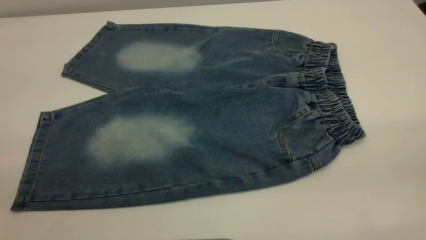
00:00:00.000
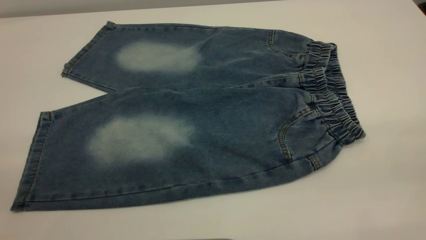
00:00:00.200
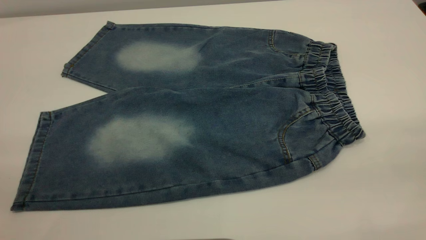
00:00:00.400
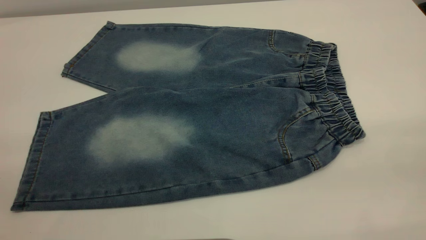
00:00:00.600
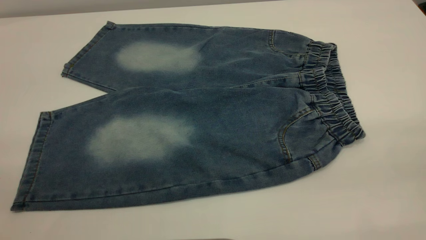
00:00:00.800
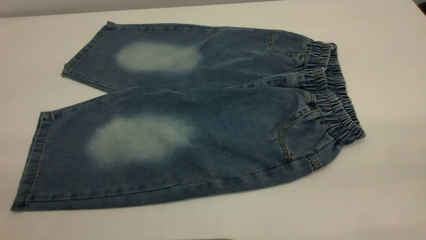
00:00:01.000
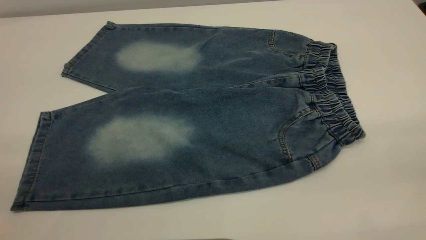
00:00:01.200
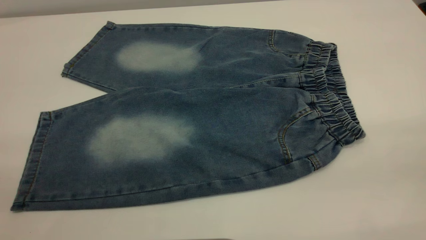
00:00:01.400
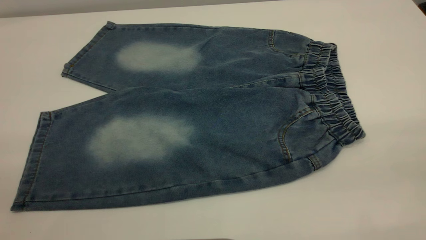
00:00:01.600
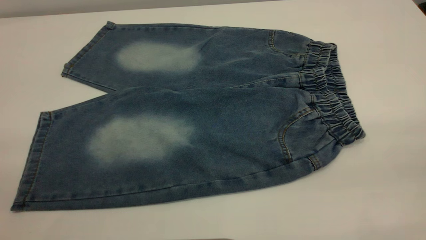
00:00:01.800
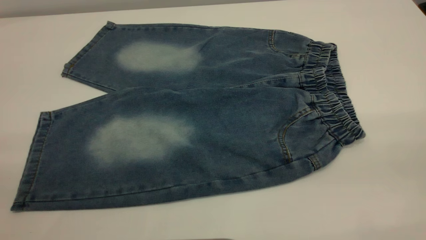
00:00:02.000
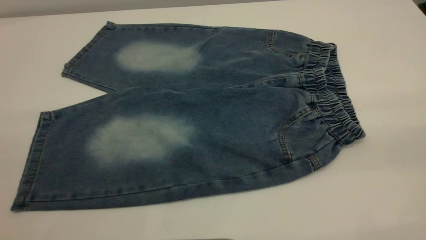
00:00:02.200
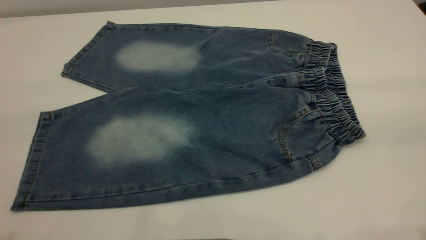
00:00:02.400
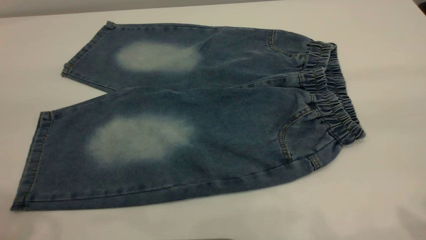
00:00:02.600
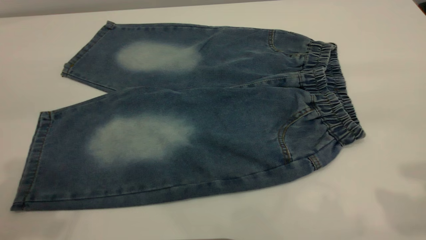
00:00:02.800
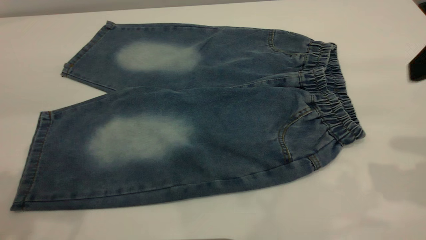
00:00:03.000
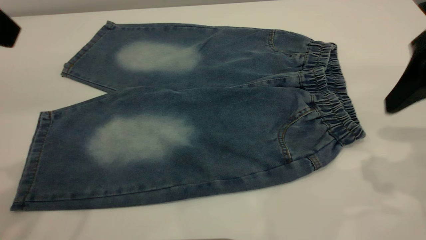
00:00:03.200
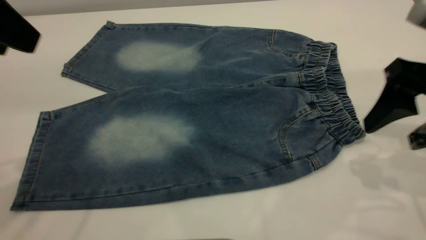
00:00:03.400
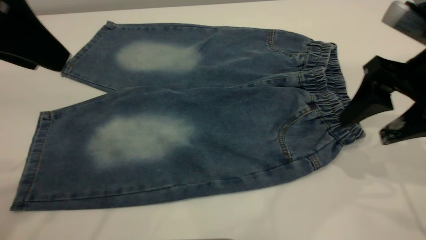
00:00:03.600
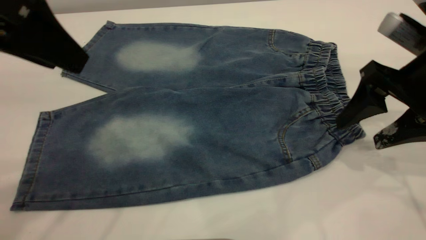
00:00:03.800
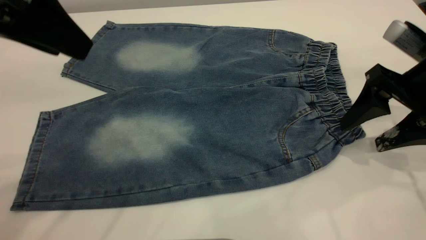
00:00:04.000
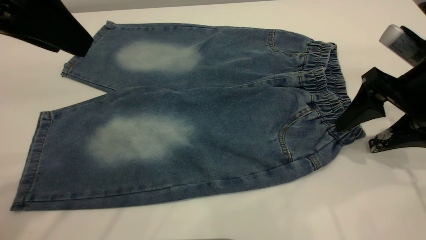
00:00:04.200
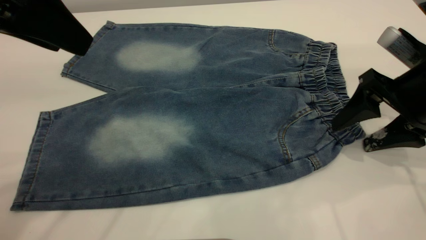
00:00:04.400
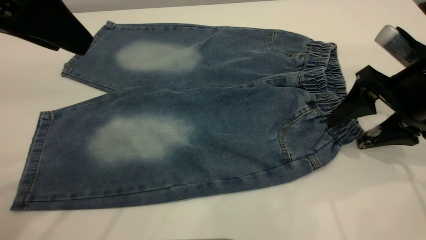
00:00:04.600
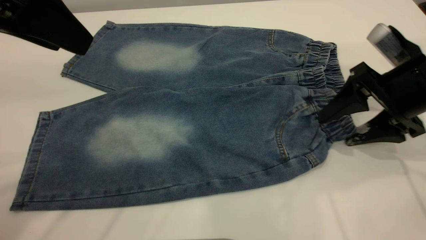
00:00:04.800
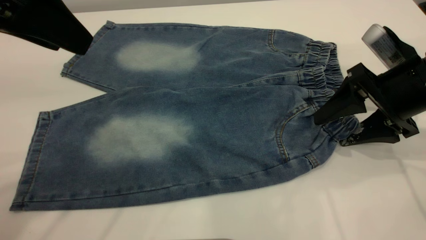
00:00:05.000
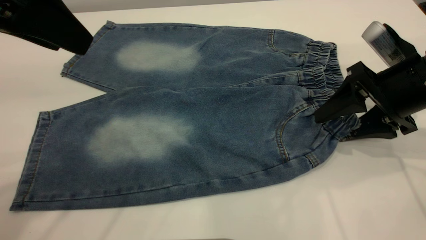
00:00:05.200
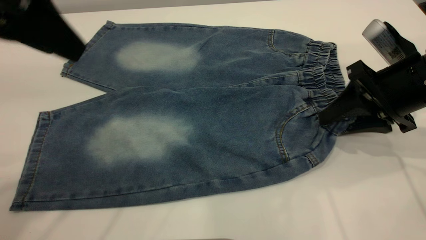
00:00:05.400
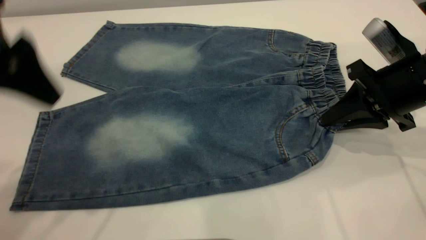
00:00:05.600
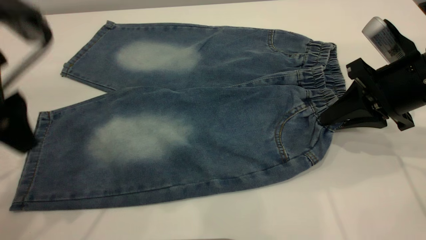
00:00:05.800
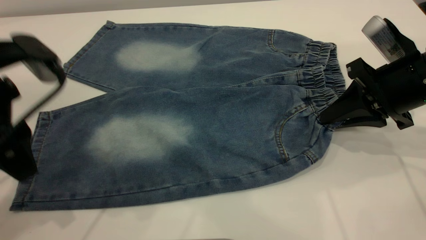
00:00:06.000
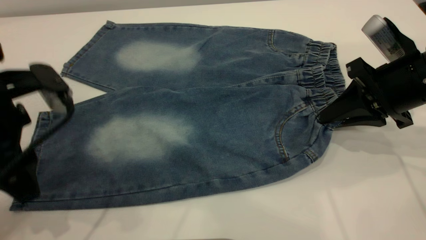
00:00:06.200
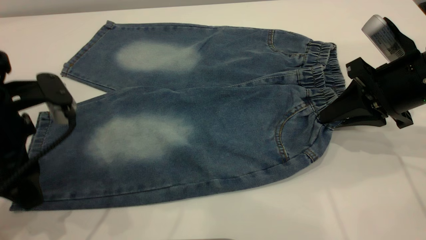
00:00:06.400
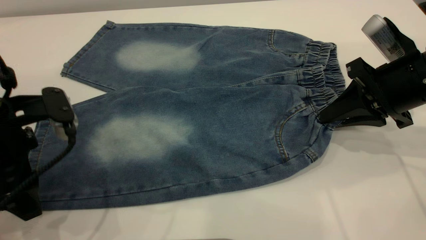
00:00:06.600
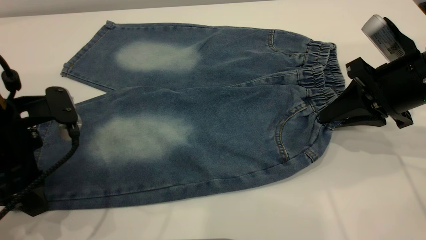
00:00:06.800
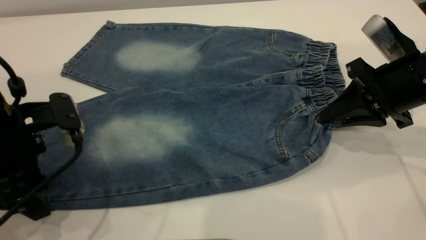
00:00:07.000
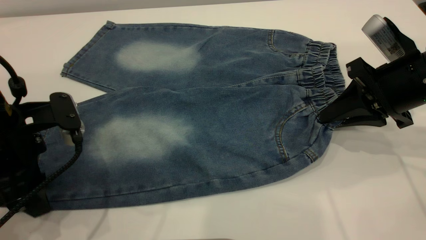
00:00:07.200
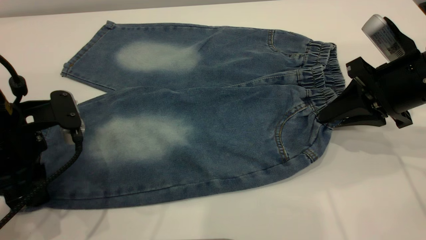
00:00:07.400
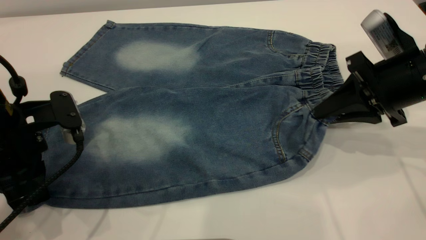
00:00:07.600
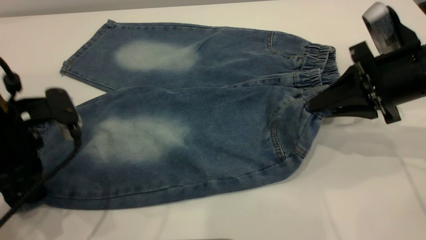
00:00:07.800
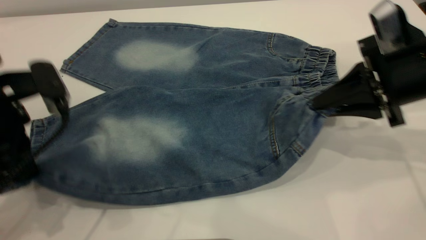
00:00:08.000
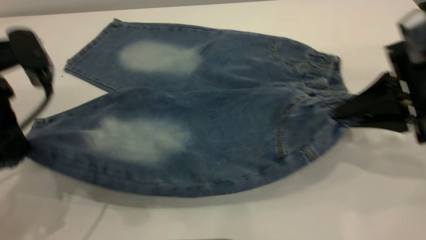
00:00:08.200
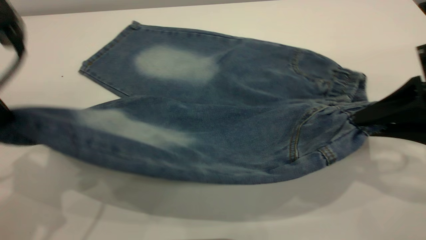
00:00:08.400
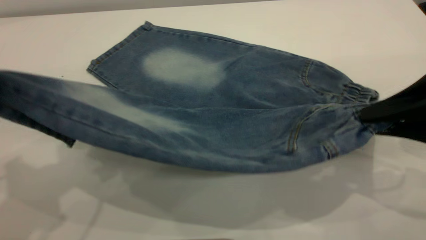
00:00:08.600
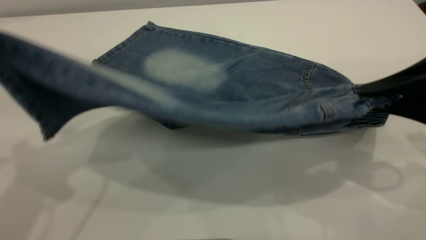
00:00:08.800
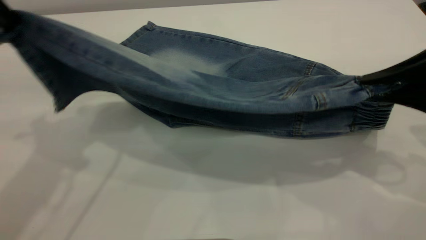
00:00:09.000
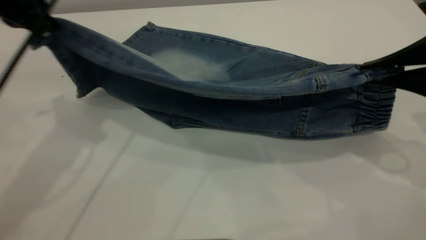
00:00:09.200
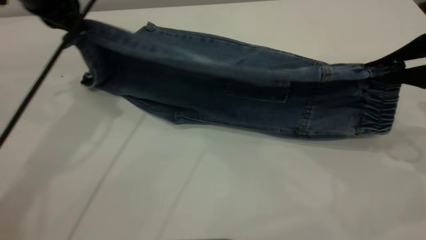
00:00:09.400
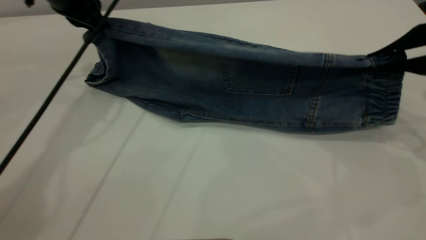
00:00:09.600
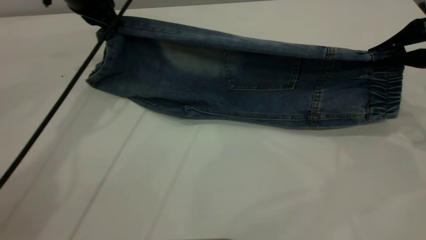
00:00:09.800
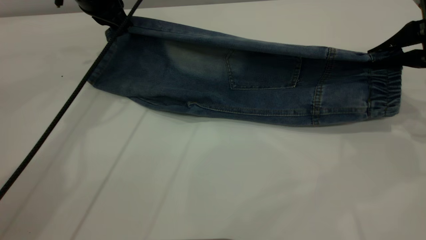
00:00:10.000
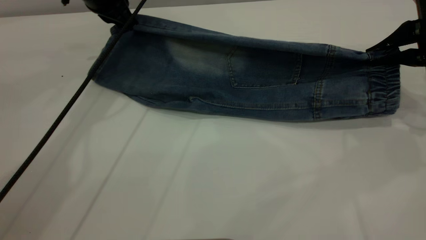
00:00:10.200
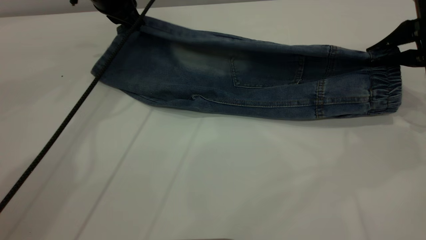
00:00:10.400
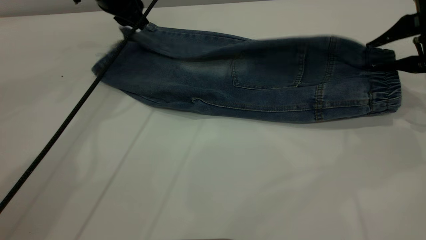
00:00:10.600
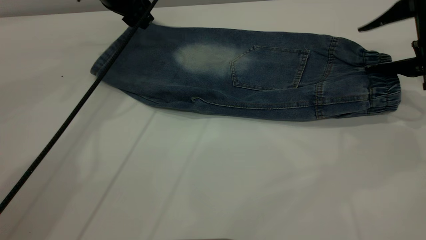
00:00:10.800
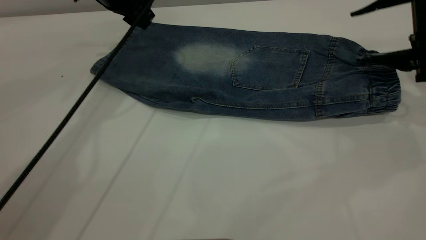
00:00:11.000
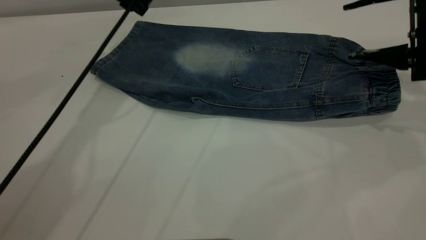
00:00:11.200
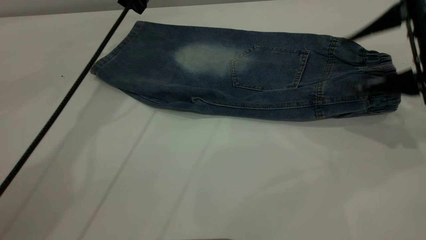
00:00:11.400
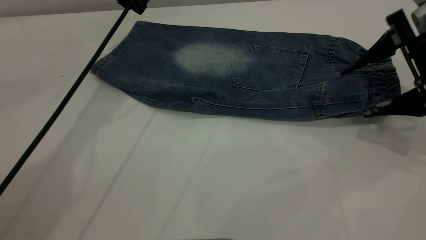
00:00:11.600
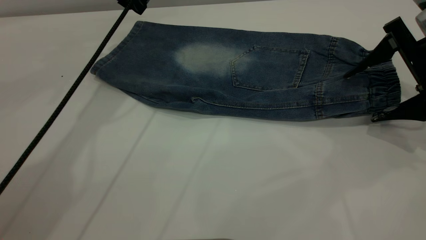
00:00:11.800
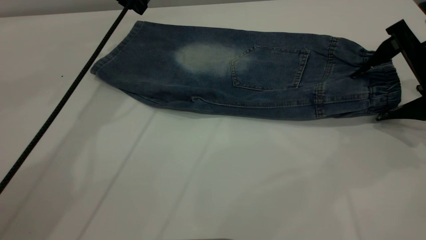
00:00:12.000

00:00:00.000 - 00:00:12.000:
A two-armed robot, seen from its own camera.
Step, 00:00:00.000 - 00:00:11.200: Fold the bottom of the pants upward.
00:00:00.000 - 00:00:01.600: Neither gripper changes place.
00:00:03.000 - 00:00:04.400: The left gripper goes some 5 cm to the right. Meanwhile the right gripper shifts roughly 15 cm downward and forward.
00:00:04.400 - 00:00:06.000: The right gripper closes up; the left gripper goes some 10 cm downward.
00:00:06.000 - 00:00:07.600: The left gripper goes roughly 5 cm downward, and closes its fingers.
00:00:07.600 - 00:00:09.000: The right gripper heads backward and upward, covering roughly 10 cm. The left gripper goes approximately 15 cm upward.
00:00:09.000 - 00:00:10.400: The right gripper moves forward, some 10 cm. The left gripper moves forward and downward, some 20 cm.
00:00:10.400 - 00:00:12.000: The left gripper opens, while the right gripper opens its fingers.

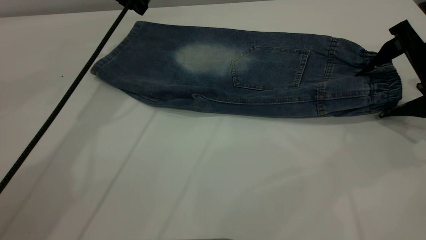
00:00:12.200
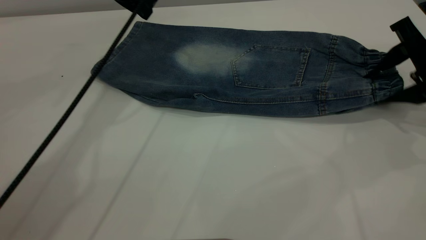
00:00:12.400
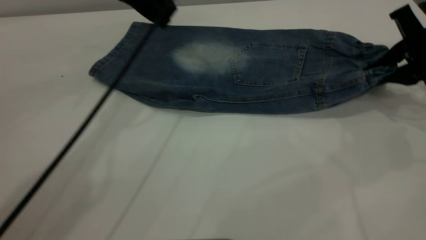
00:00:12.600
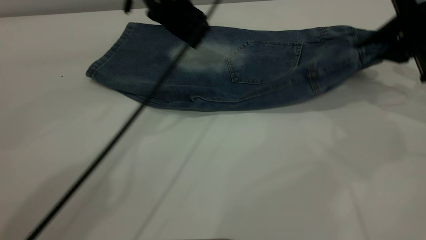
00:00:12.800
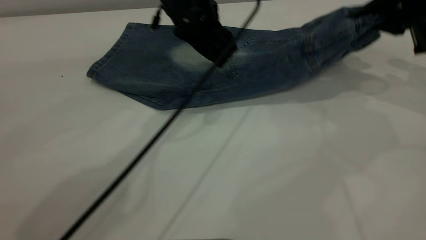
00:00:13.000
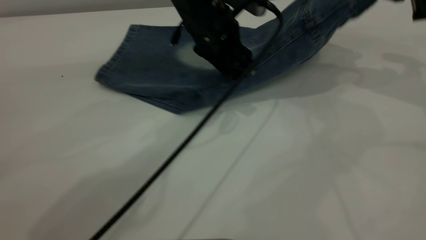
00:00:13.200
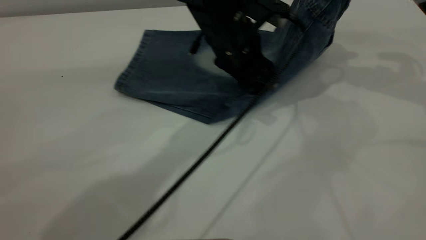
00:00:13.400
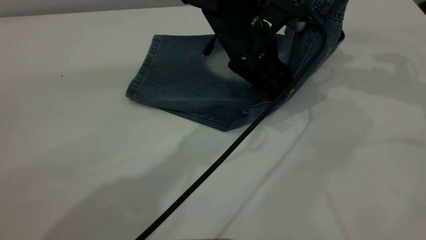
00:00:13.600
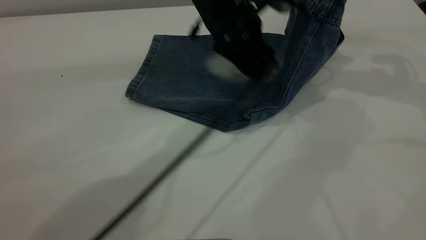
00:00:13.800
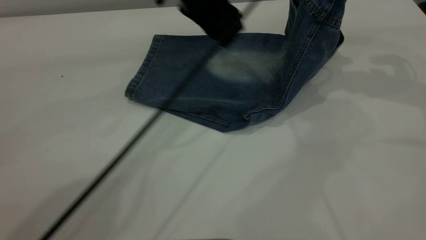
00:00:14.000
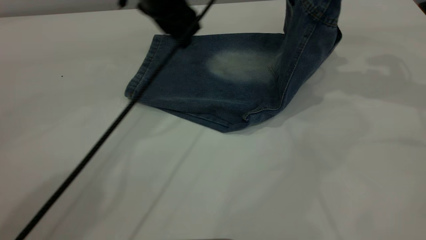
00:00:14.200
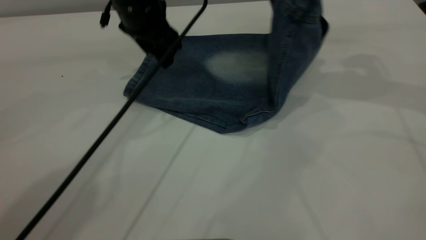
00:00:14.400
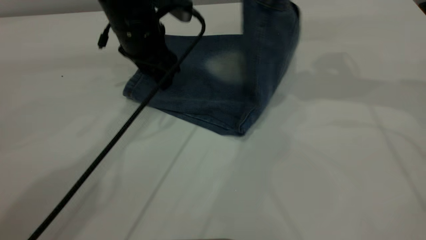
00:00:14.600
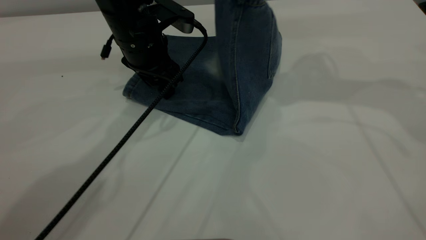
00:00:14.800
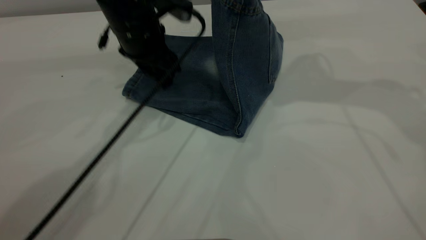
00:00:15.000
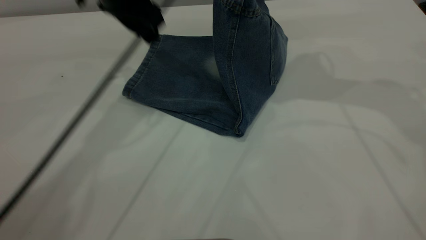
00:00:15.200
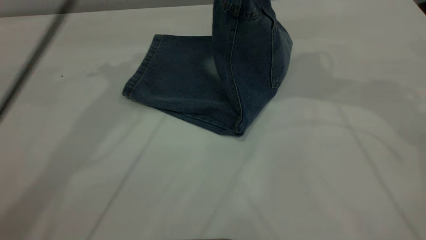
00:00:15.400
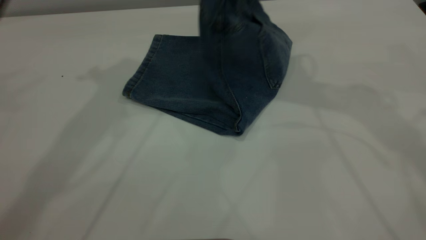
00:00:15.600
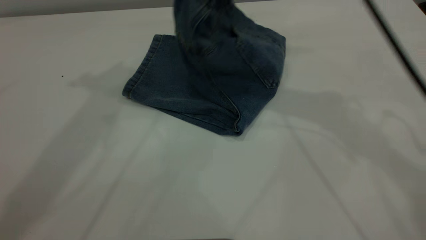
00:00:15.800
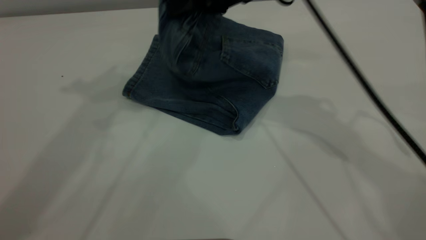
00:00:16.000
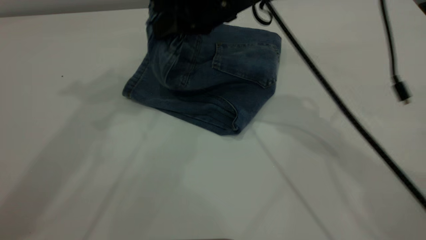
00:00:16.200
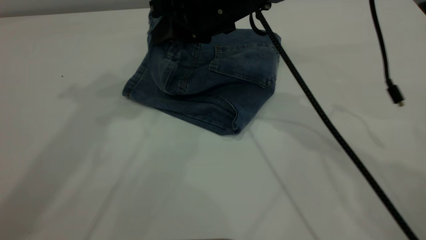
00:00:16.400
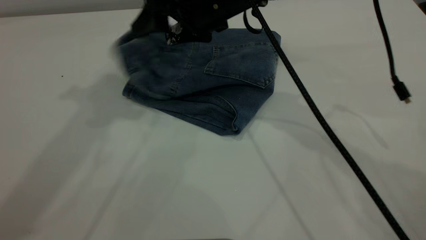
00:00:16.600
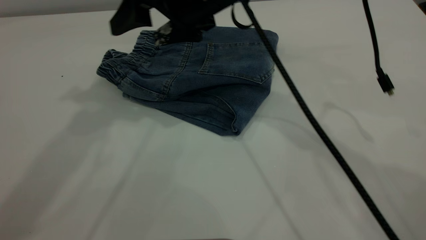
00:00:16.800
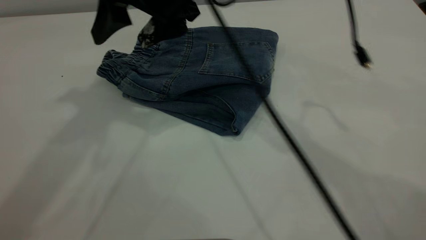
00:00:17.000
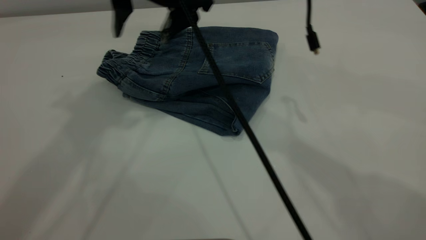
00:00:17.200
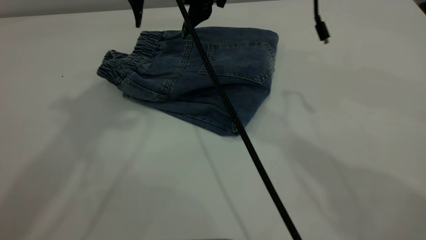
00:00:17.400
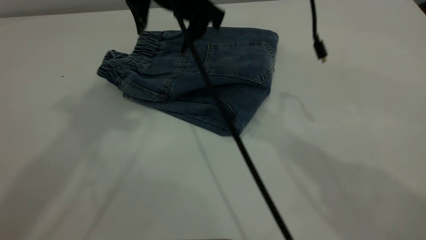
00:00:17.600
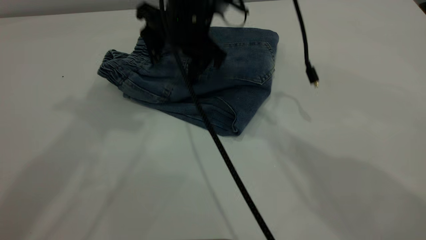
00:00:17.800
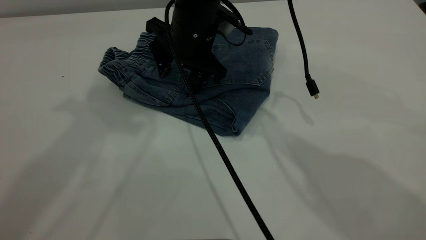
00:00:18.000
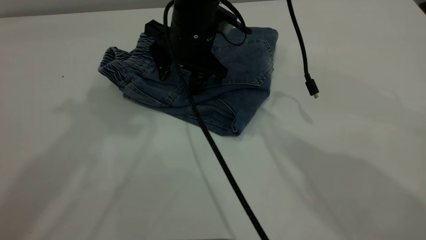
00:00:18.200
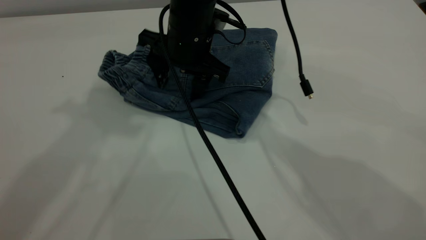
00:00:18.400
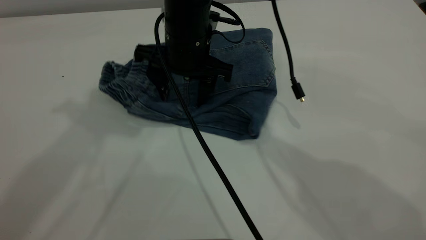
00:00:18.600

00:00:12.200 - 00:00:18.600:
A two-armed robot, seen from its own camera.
Step, 00:00:12.200 - 00:00:17.200: Fold your pants from right to left.
00:00:12.200 - 00:00:13.800: The right gripper travels upward and forward by approximately 15 cm, and closes. The left gripper is displaced to the right and backward by about 20 cm.
00:00:13.800 - 00:00:15.400: The right gripper is displaced to the left by roughly 15 cm, while the left gripper is displaced to the left and upward by approximately 25 cm.
00:00:15.400 - 00:00:17.000: The right gripper shifts roughly 20 cm to the left, and opens up. Meanwhile the left gripper travels upward and backward by some 15 cm.
00:00:17.000 - 00:00:18.600: The right gripper moves downward, approximately 10 cm.
